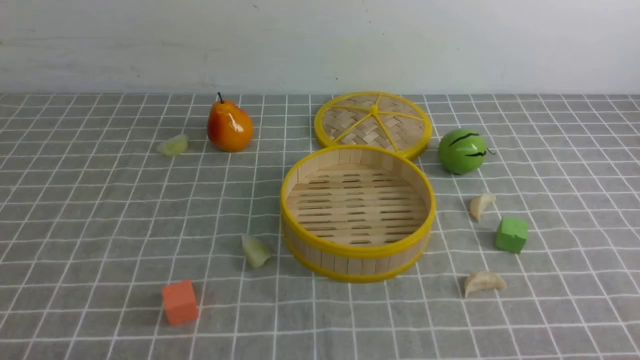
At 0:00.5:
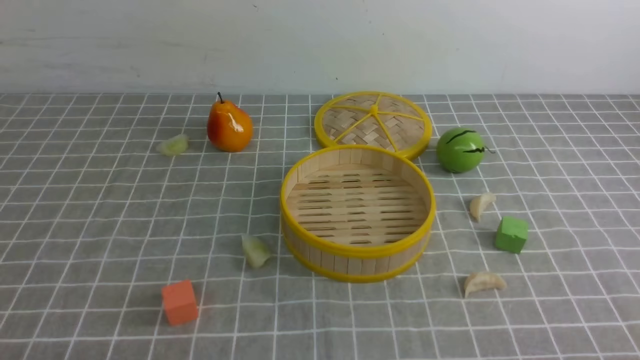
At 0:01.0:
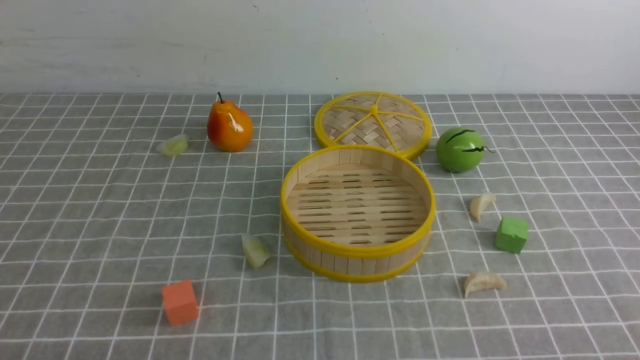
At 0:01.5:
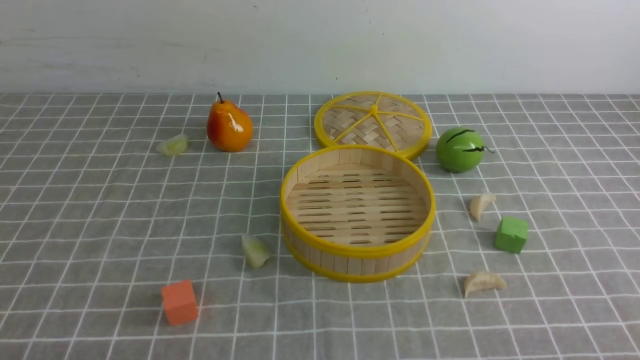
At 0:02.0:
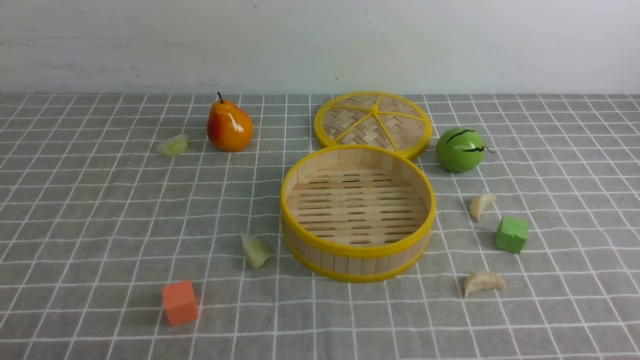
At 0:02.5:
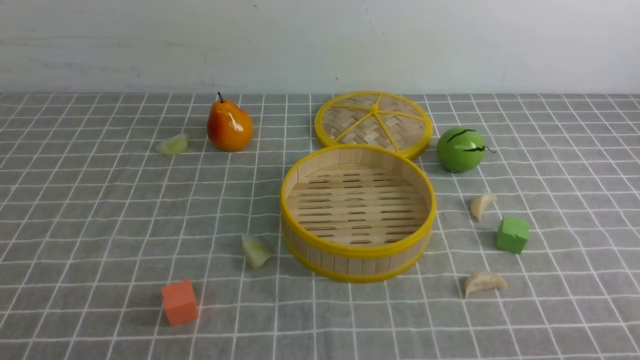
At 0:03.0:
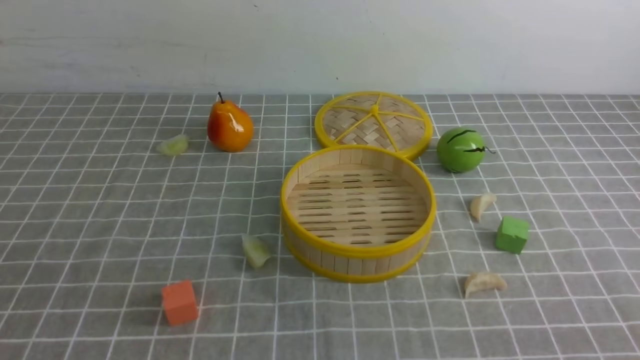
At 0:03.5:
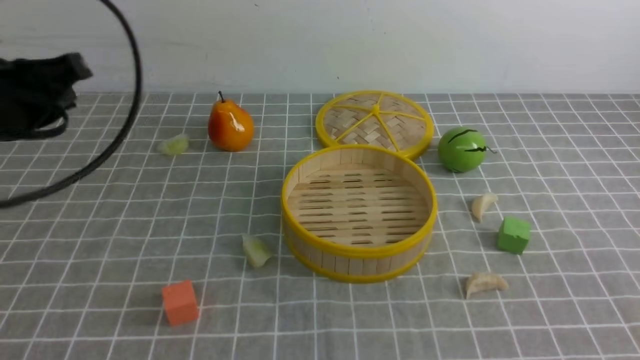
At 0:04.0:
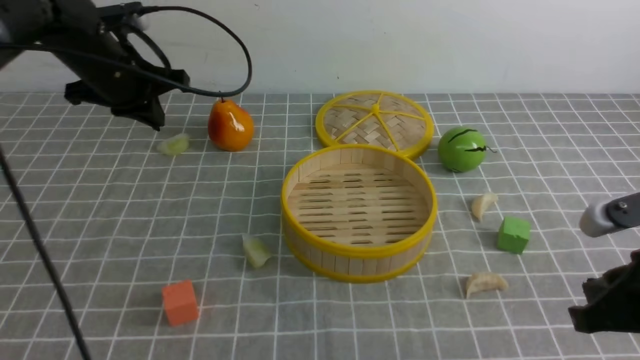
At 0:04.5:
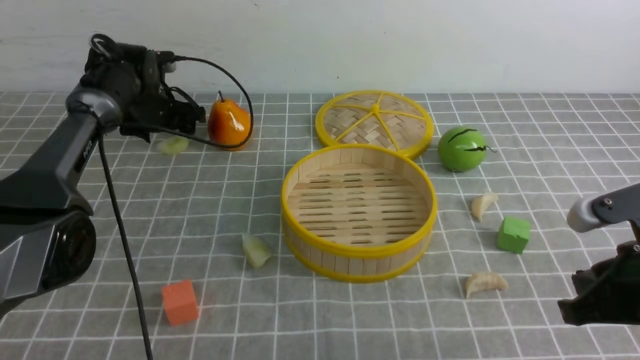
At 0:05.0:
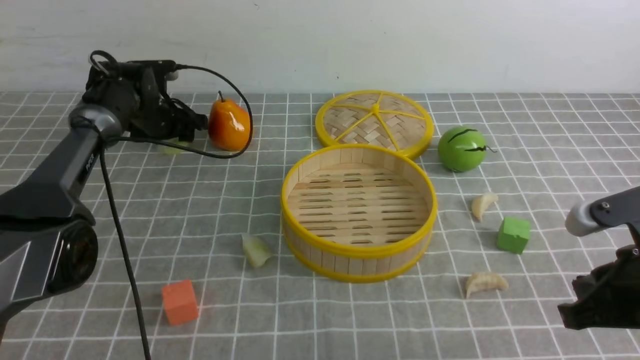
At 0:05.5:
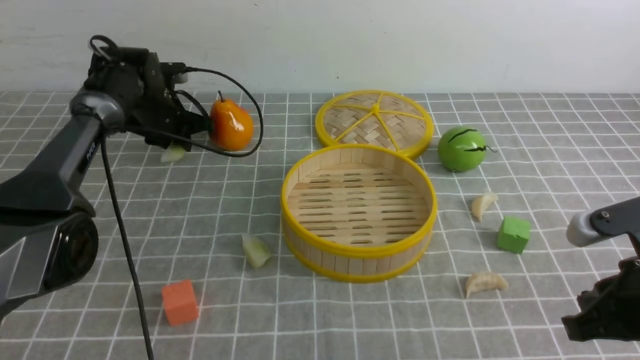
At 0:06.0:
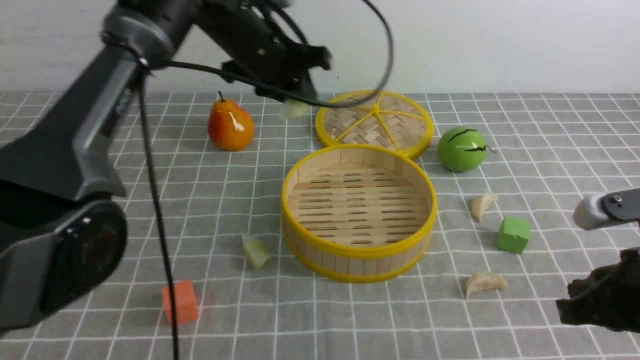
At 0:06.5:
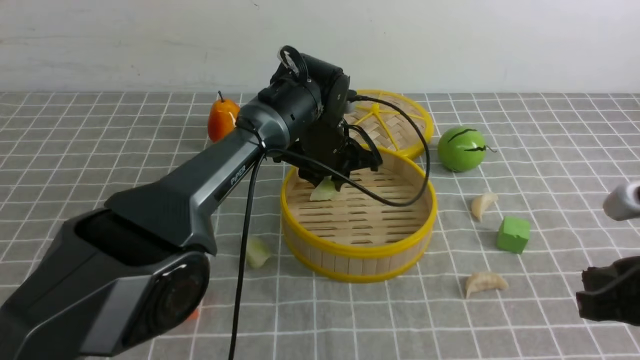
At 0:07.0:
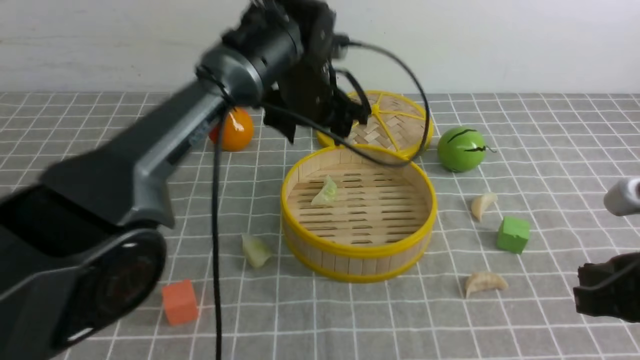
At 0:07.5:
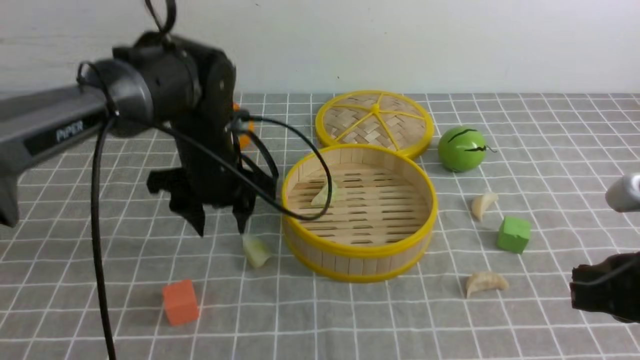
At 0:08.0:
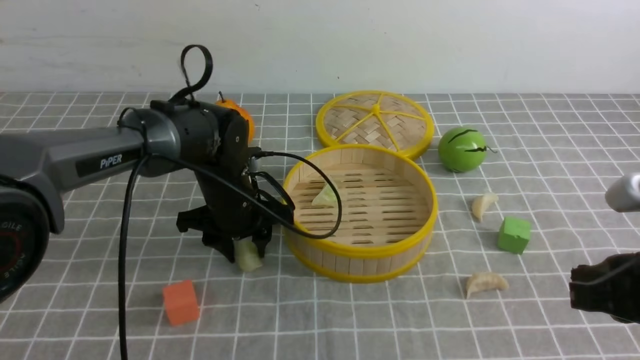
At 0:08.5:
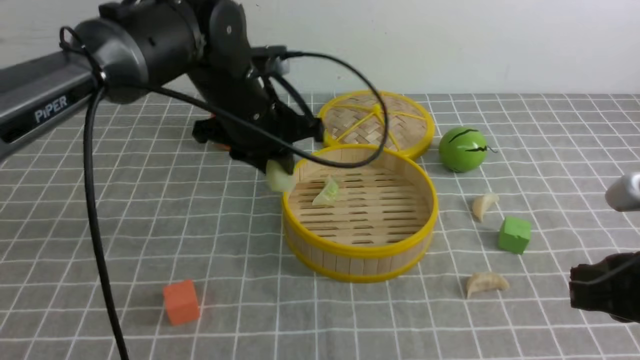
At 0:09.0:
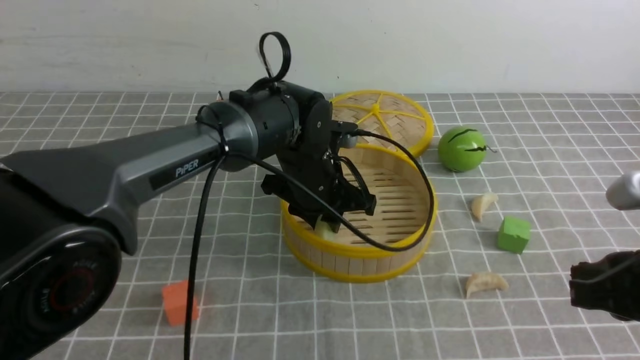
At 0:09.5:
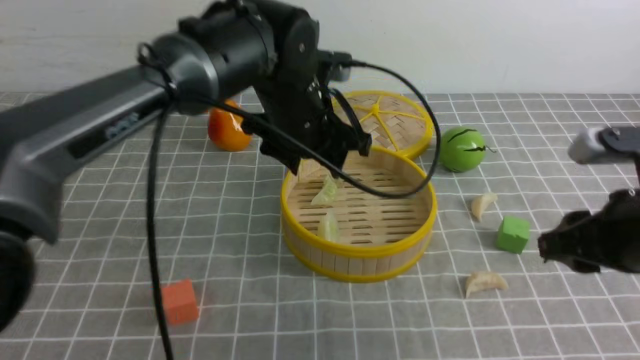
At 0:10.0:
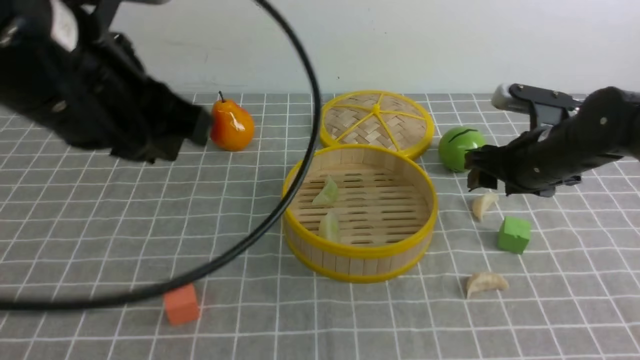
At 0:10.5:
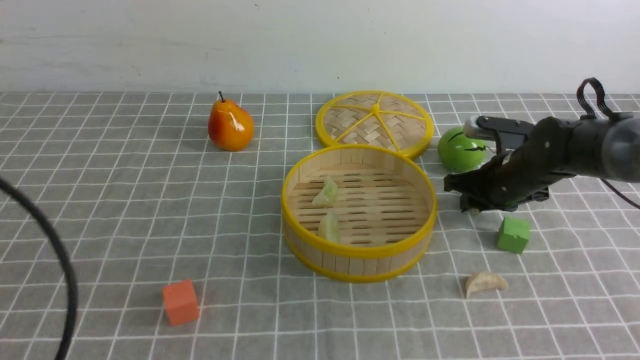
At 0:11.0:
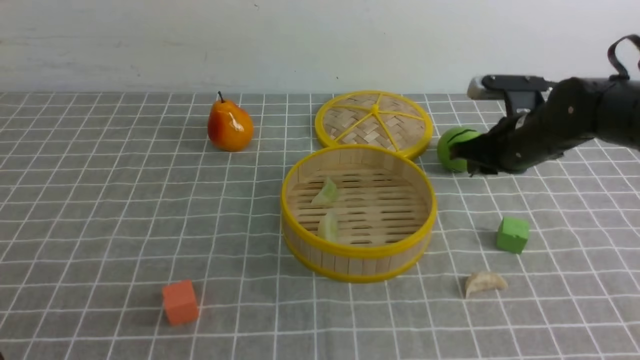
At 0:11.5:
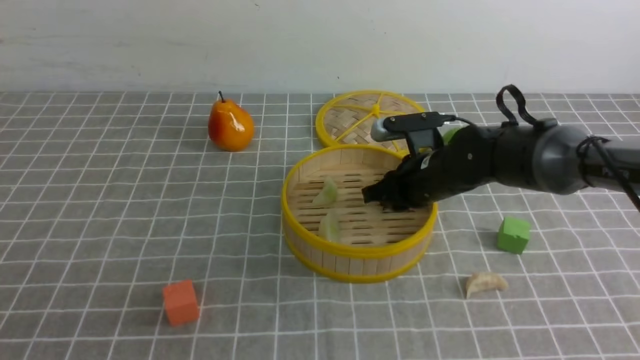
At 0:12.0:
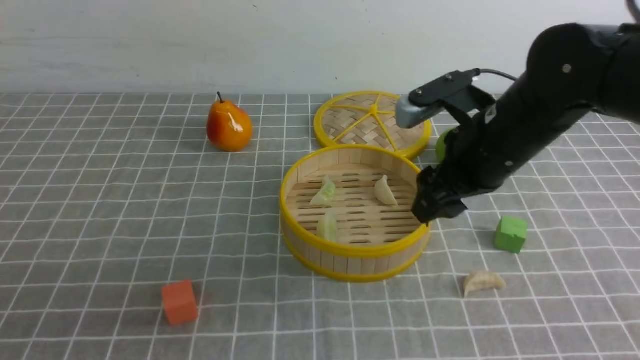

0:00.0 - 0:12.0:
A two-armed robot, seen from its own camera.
Task of the whole recording: put the dumplings into the steamer on the table with the grey tablecloth.
Step, 0:00.0 - 0:05.5: use the left arm to grab a dumpling.
Step, 0:06.0 - 0:07.0: use the left arm to put the dumpling into the steamer.
Step, 0:07.5 - 0:08.0: use the left arm to grab a dumpling.
Step, 0:08.5 - 0:09.0: use the left arm to put the dumpling into the steamer.
Step, 0:09.5 - 0:10.5: use the right arm to grab a dumpling.
Step, 0:11.0 - 0:11.5: use the right arm to put the dumpling into the steamer.
0:02.0 - 0:04.0: The left gripper heads forward, covering approximately 40 cm. Meanwhile the right gripper travels forward and upward by approximately 15 cm, and closes up.
0:04.0 - 0:06.0: The left gripper is displaced to the right by roughly 15 cm, and opens and closes again.
0:06.0 - 0:08.0: The left gripper moves up and down over about 15 cm, changing direction 2 times, and opens, then closes once more.
0:08.0 - 0:10.0: The right gripper heads forward, covering approximately 20 cm, and opens its fingers, while the left gripper goes up and down, approximately 25 cm each way, reversing 2 times.
0:10.0 - 0:12.0: The left gripper moves backward, downward and to the left, roughly 25 cm; the right gripper goes roughly 10 cm to the left, and closes, then reopens.

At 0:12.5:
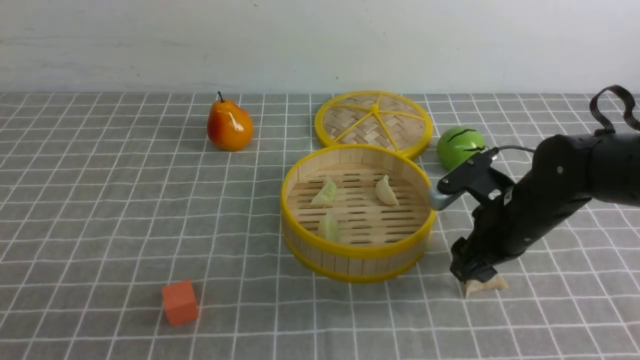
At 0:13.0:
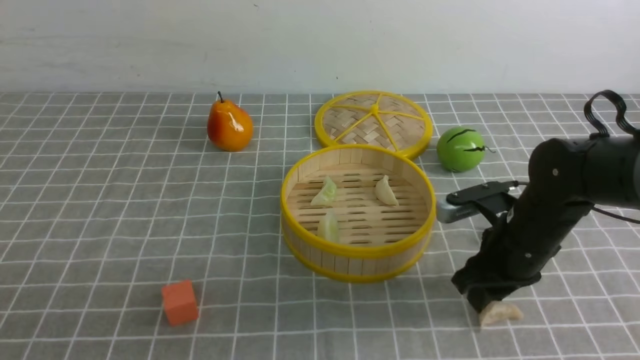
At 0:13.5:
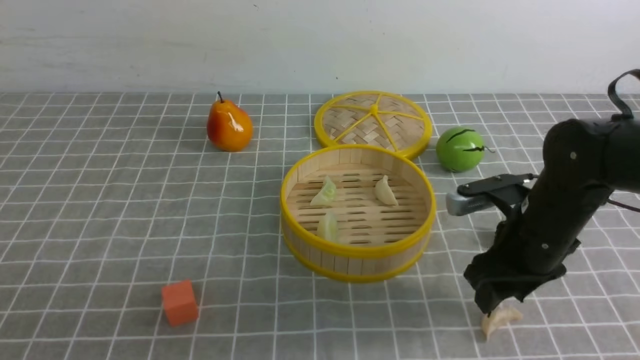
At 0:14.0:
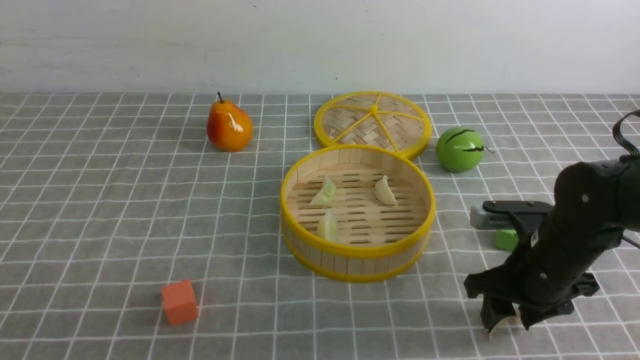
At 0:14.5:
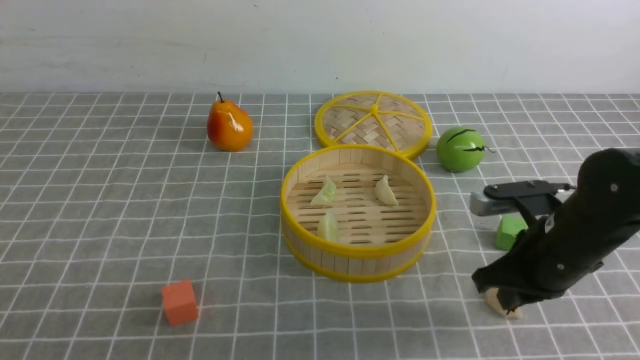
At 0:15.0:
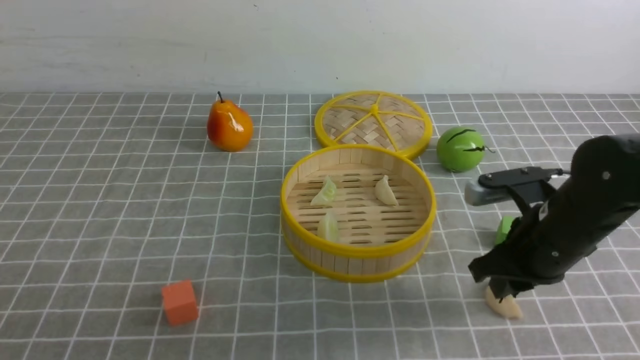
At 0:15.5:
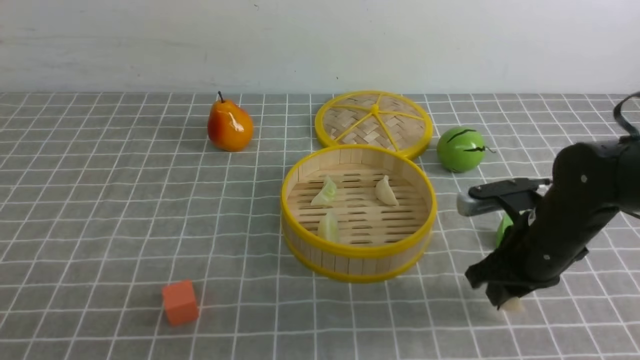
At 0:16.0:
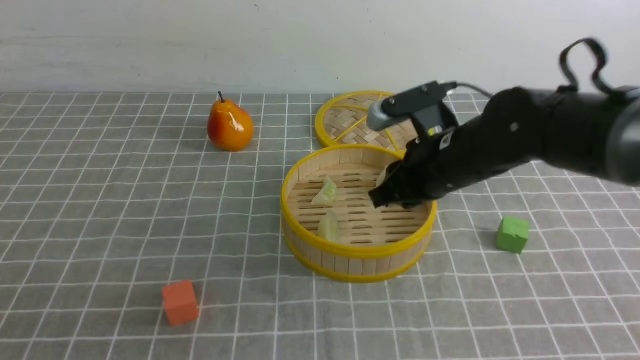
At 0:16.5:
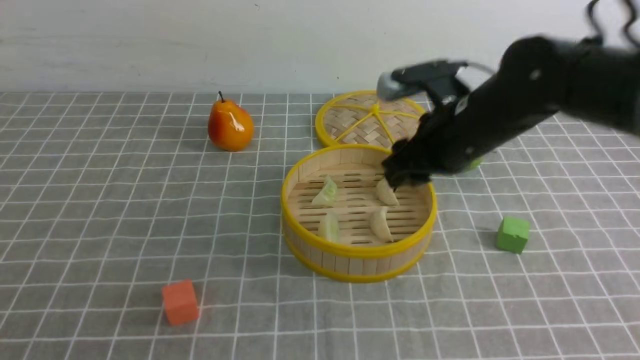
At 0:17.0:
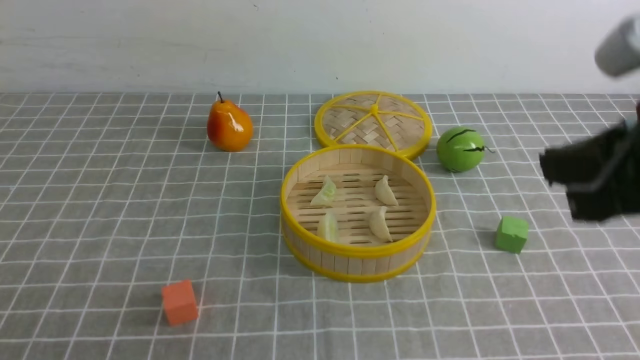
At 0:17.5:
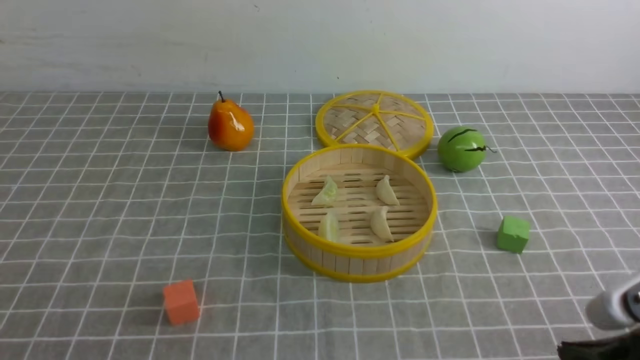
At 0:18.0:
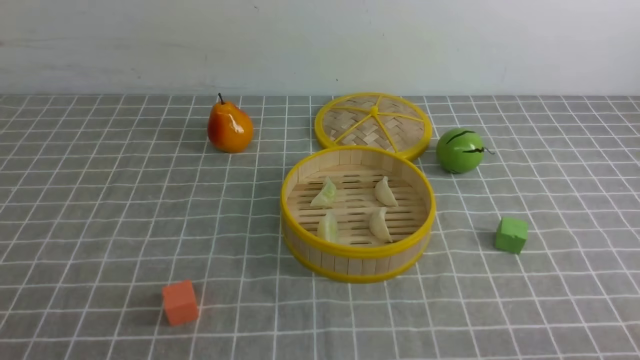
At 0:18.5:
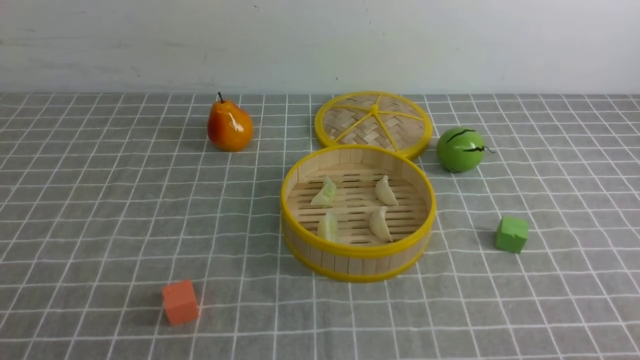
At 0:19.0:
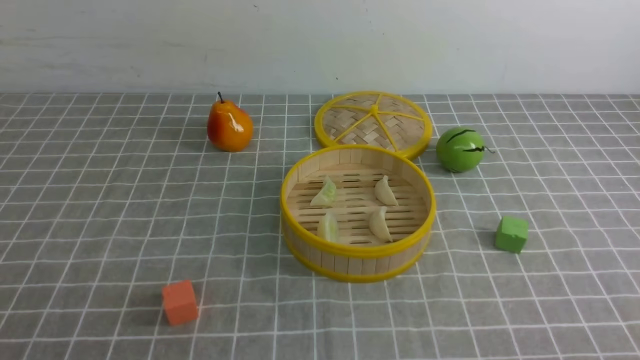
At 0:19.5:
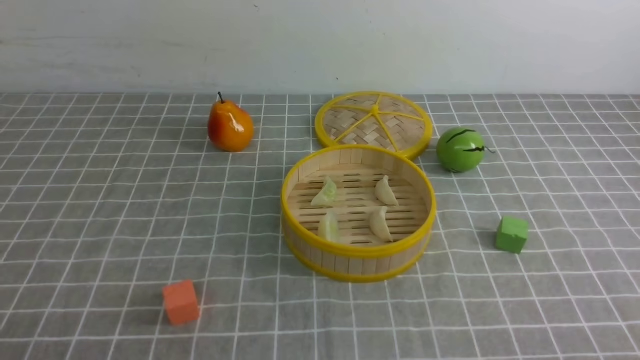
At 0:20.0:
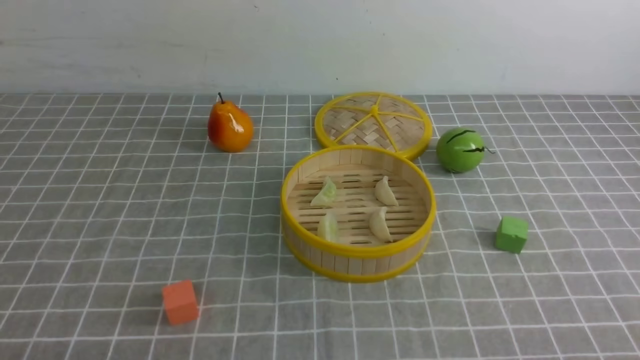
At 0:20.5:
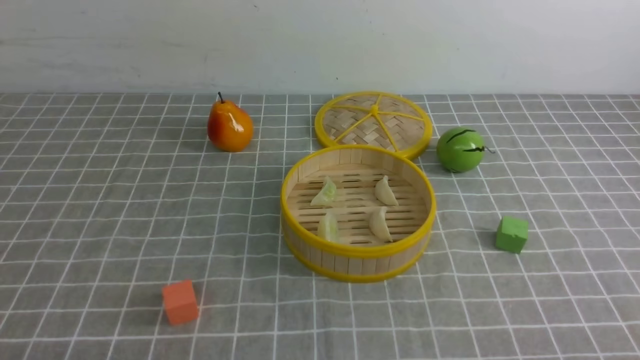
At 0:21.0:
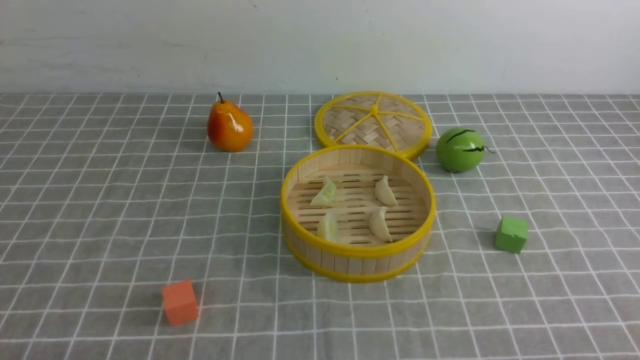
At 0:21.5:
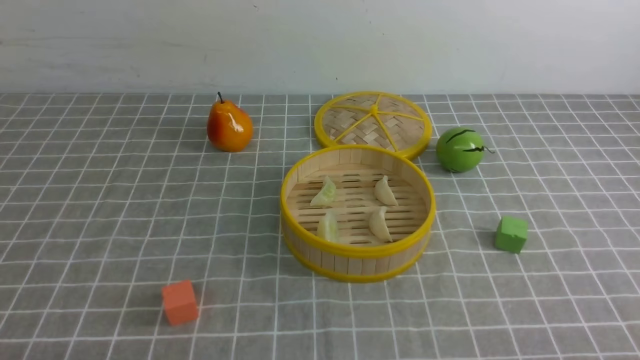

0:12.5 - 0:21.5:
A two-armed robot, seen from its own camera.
Task of the whole recording: put the dumplings into the steamer on the table with the grey tablecloth.
Step, 0:12.5 - 0:15.5: use the right arm to grab a dumpling.
0:12.5 - 0:14.5: The right gripper ends up approximately 5 cm from where it was, and closes.
0:14.5 - 0:17.0: The left gripper closes its fingers. The right gripper goes approximately 20 cm upward and backward.
0:17.0 - 0:19.5: The right gripper moves downward, backward and to the right, roughly 25 cm.
